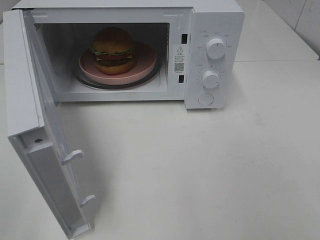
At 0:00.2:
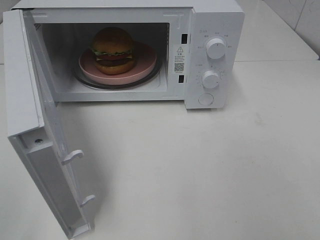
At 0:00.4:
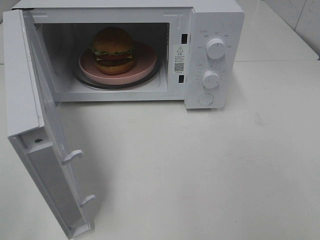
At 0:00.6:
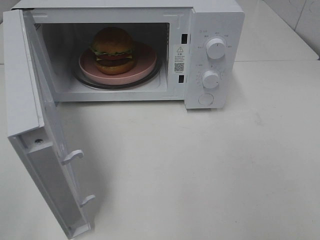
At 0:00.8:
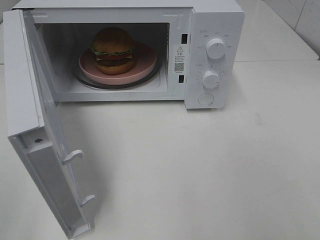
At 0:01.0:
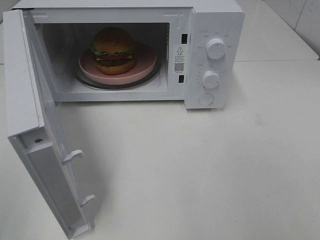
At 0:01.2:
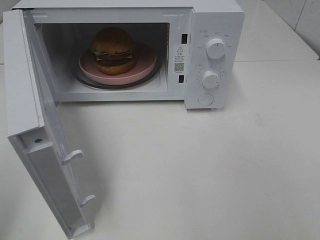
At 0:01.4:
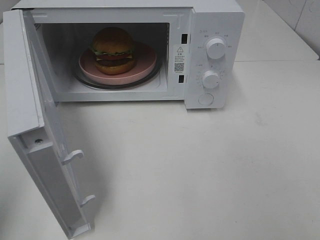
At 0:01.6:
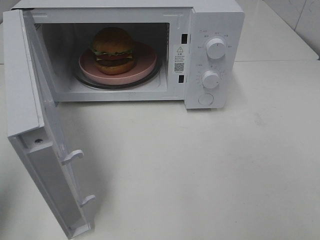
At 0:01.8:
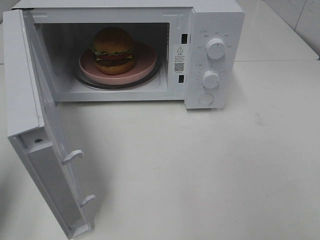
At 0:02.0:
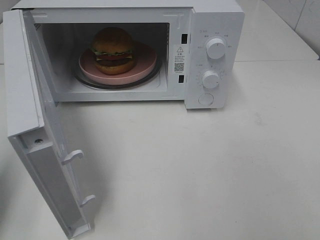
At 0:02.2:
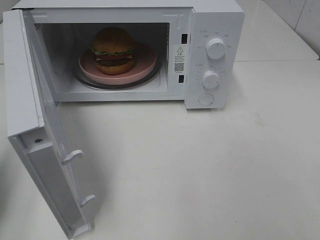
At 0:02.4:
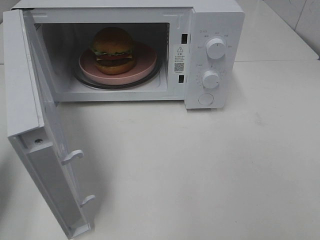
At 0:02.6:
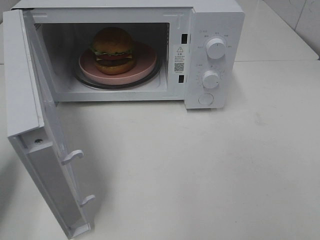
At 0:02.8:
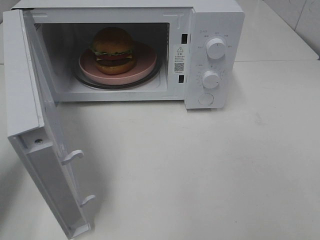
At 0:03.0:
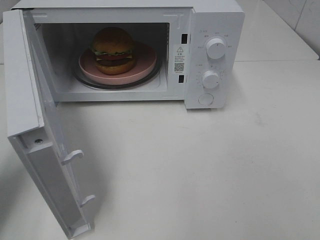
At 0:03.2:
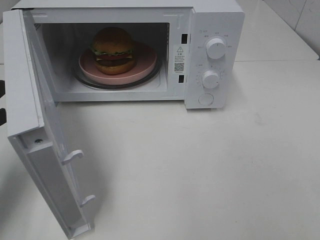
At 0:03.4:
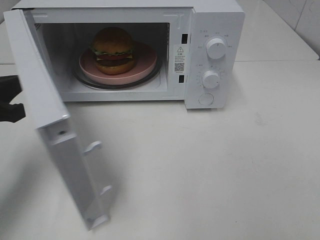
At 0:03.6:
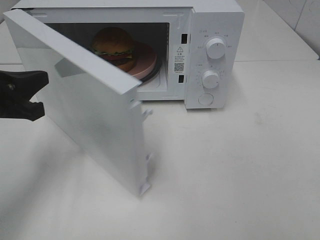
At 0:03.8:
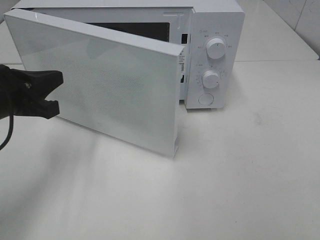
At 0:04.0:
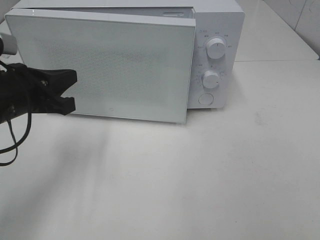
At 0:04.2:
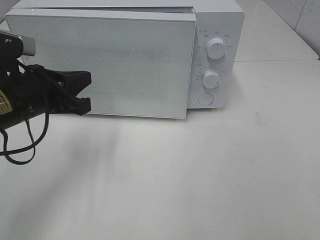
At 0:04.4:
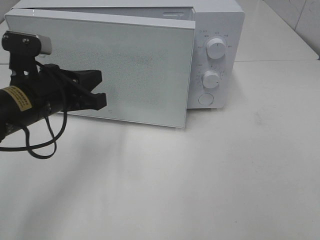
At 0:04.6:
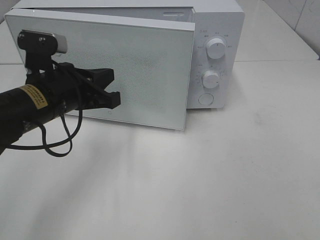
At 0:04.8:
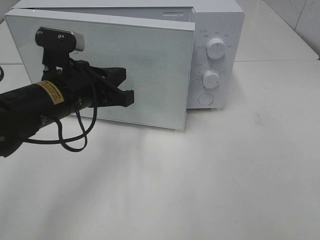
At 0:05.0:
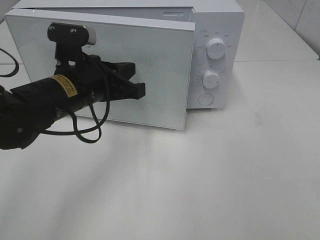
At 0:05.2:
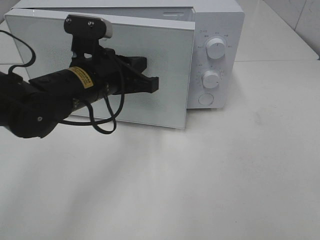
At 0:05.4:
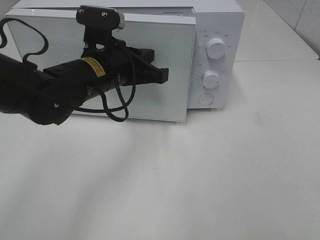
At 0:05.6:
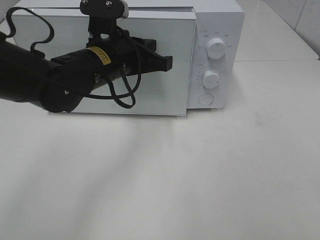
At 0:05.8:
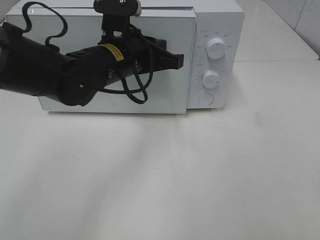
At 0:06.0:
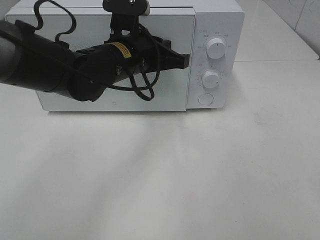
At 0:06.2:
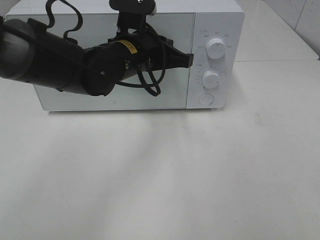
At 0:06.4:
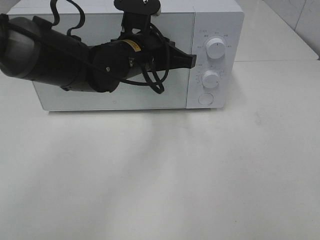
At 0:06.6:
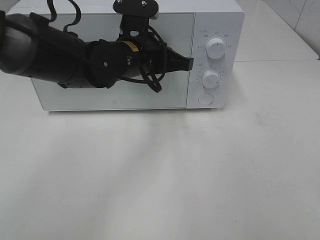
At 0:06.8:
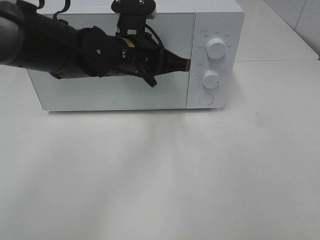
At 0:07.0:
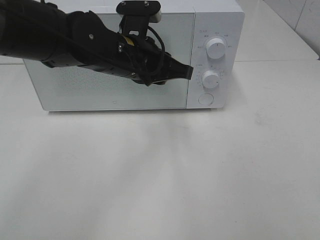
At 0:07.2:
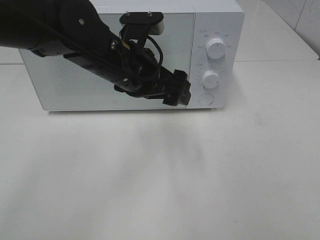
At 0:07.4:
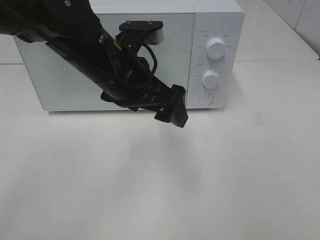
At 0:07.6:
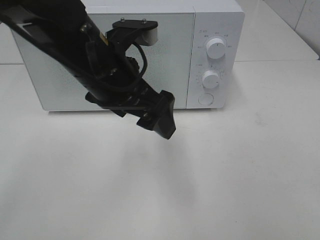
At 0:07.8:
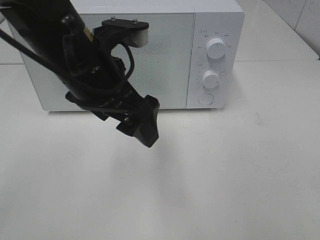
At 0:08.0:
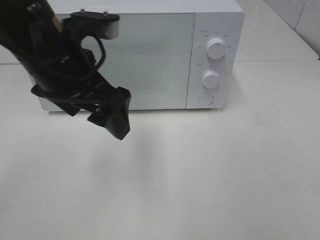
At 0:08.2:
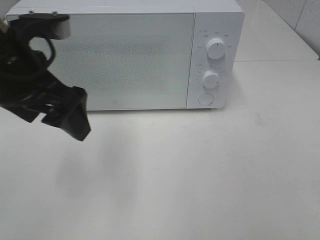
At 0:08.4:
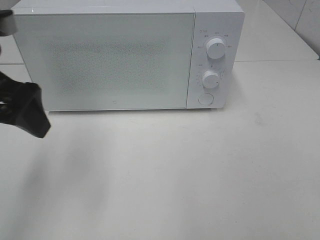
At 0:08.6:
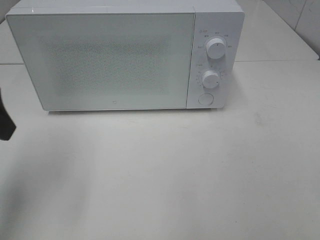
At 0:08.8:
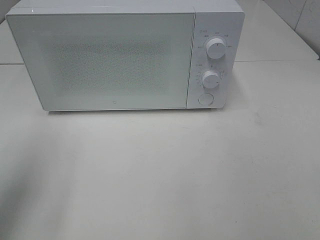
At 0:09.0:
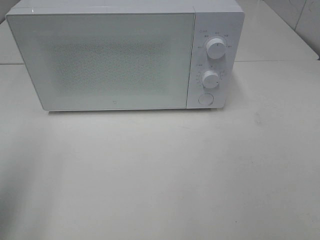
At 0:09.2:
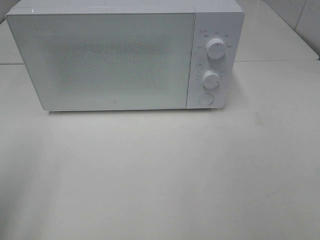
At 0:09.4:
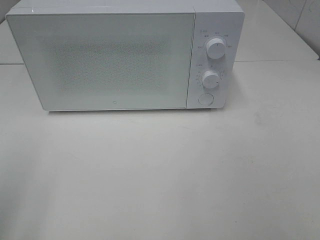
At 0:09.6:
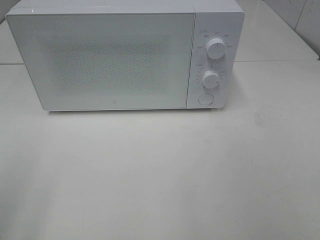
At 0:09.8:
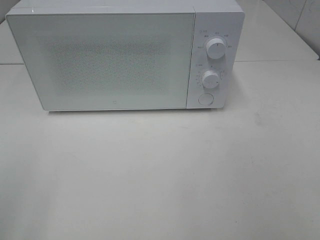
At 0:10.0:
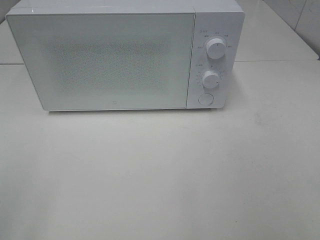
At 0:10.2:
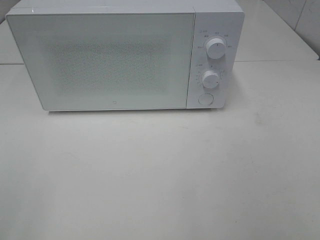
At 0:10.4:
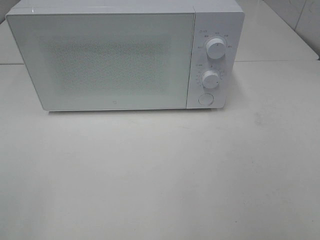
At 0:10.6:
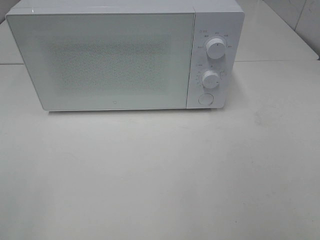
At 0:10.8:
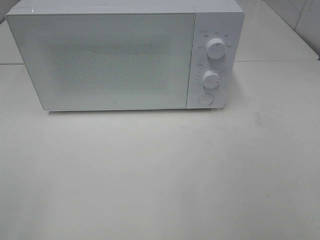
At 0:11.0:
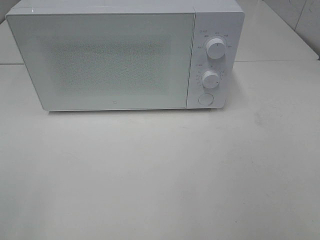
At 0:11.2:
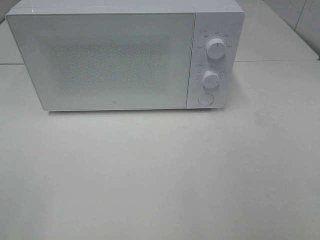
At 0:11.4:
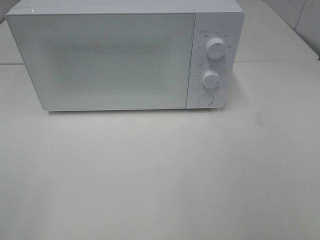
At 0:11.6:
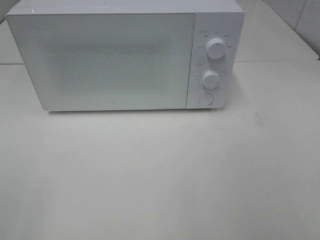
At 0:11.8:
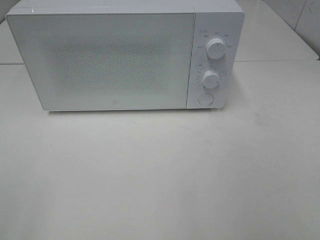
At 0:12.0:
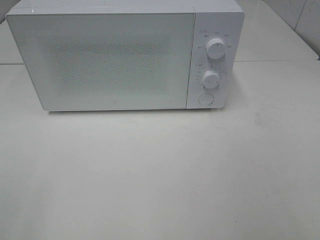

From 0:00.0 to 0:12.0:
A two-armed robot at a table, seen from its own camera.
Task of the whole recording: Heat the burger.
Step, from 0:00.0 to 0:06.8: Left hand: close the microwave door.
From 0:00.0 to 0:01.6: The left gripper goes approximately 15 cm forward, and closes.
From 0:01.6 to 0:03.0: The left gripper is displaced downward and forward by approximately 15 cm.
From 0:03.0 to 0:04.4: The left gripper moves to the right and forward, about 15 cm.
From 0:04.4 to 0:06.0: The left gripper heads to the right and forward, covering roughly 15 cm.
From 0:06.0 to 0:07.6: The left gripper is displaced backward and upward by approximately 10 cm, and opens its fingers.
From 0:07.6 to 0:09.0: The left gripper shifts about 25 cm to the left and backward.
From 0:09.0 to 0:10.4: The left gripper moves backward, roughly 15 cm.

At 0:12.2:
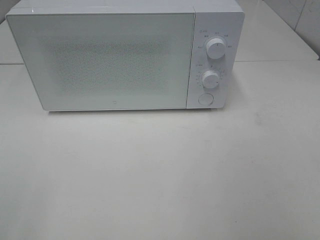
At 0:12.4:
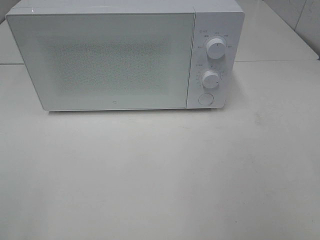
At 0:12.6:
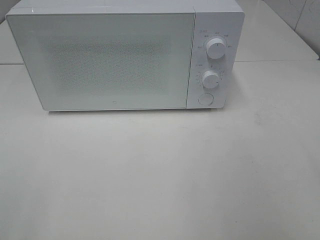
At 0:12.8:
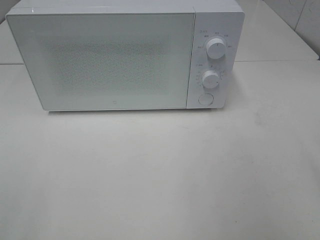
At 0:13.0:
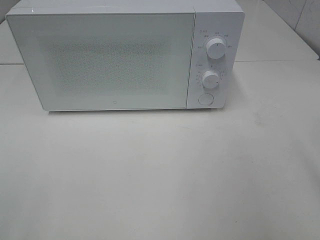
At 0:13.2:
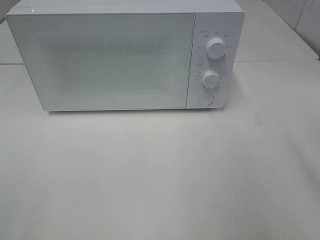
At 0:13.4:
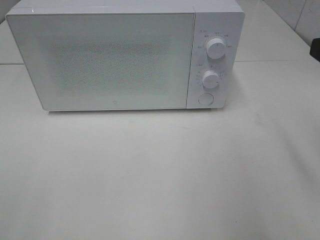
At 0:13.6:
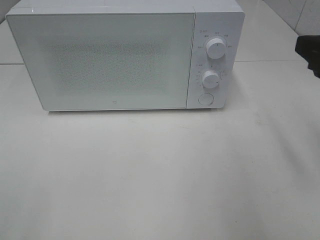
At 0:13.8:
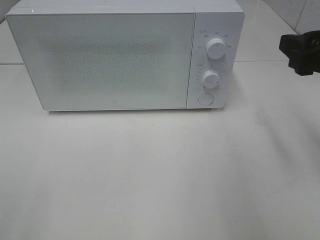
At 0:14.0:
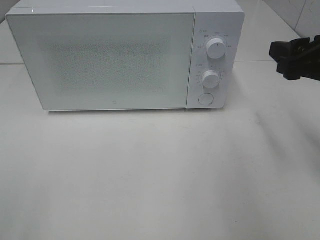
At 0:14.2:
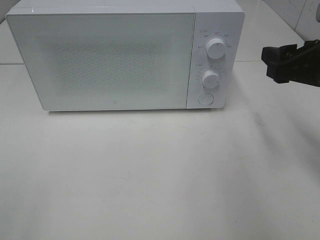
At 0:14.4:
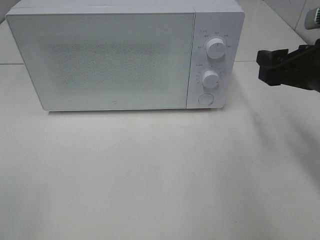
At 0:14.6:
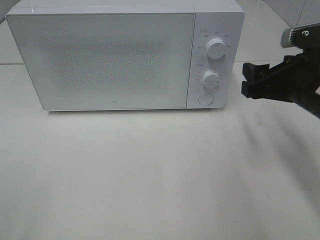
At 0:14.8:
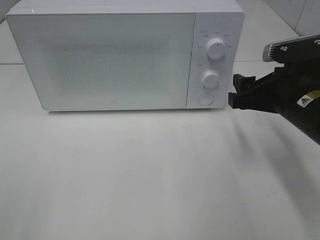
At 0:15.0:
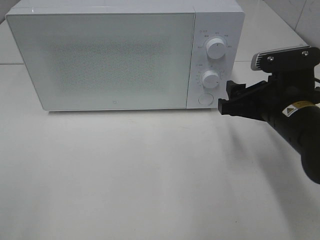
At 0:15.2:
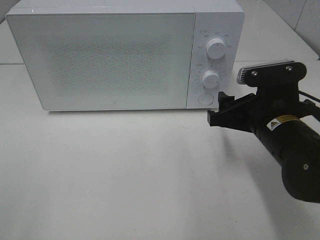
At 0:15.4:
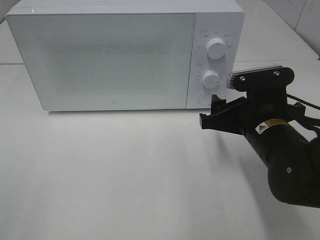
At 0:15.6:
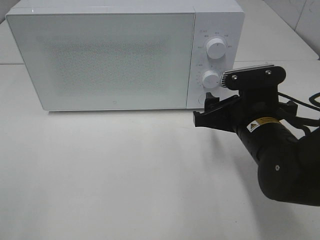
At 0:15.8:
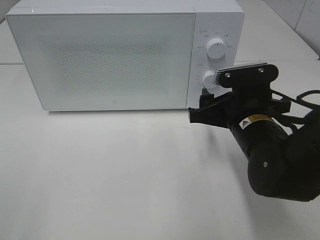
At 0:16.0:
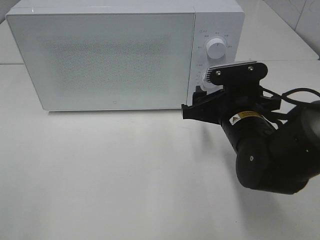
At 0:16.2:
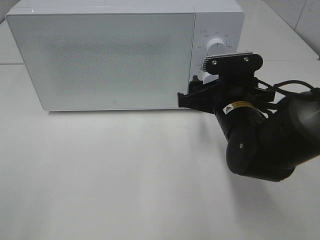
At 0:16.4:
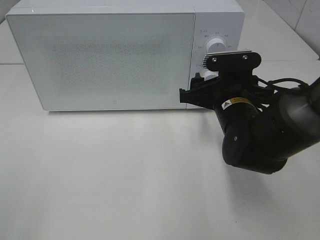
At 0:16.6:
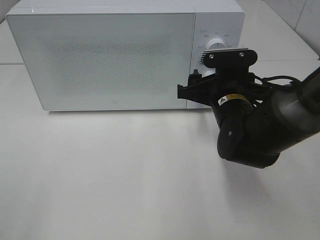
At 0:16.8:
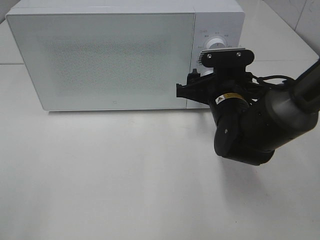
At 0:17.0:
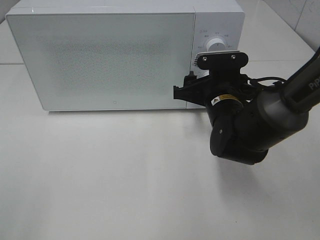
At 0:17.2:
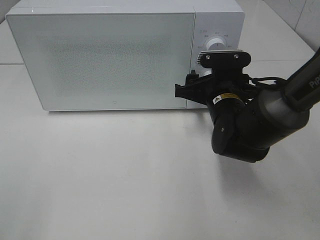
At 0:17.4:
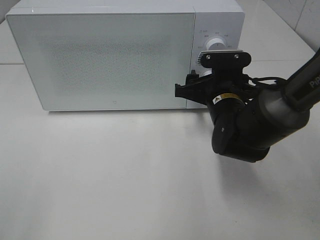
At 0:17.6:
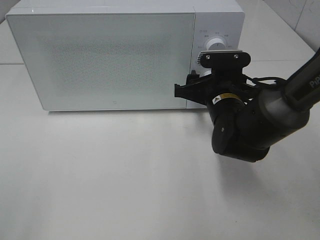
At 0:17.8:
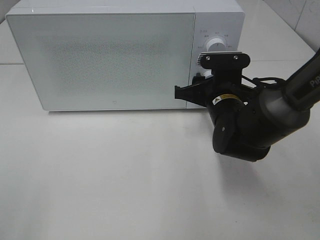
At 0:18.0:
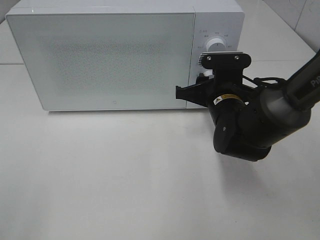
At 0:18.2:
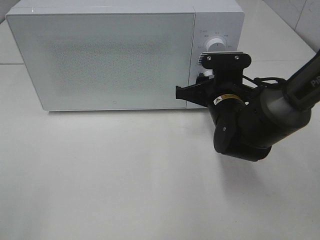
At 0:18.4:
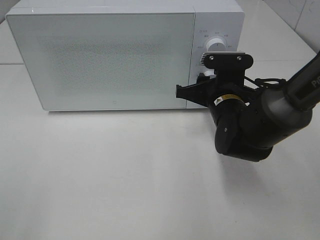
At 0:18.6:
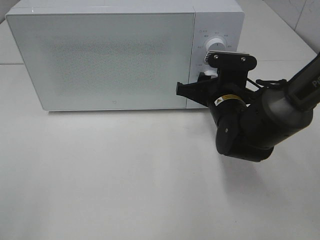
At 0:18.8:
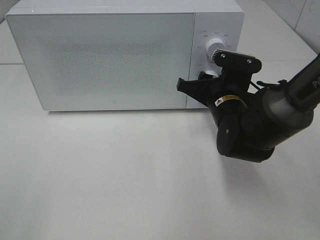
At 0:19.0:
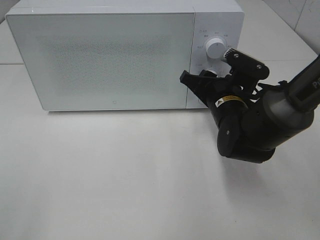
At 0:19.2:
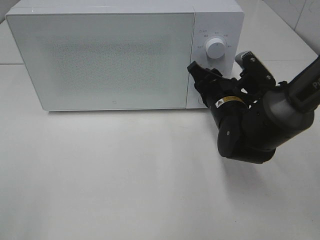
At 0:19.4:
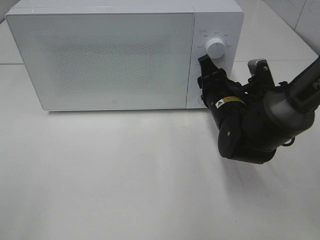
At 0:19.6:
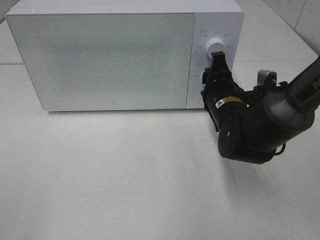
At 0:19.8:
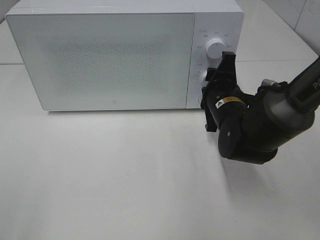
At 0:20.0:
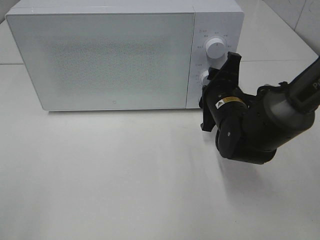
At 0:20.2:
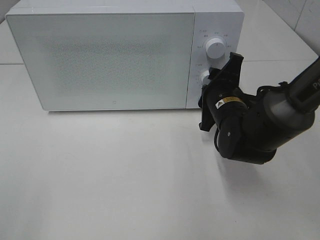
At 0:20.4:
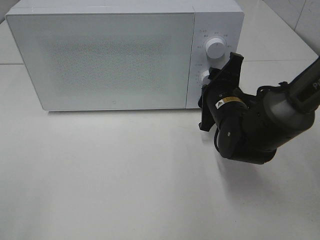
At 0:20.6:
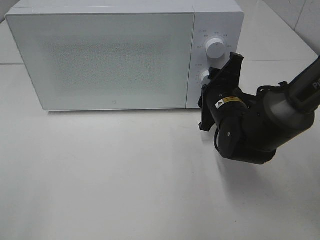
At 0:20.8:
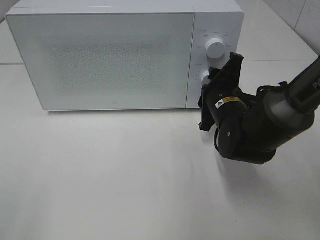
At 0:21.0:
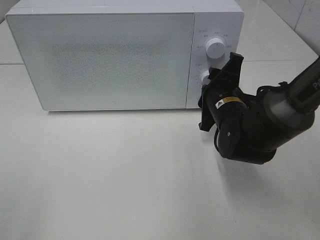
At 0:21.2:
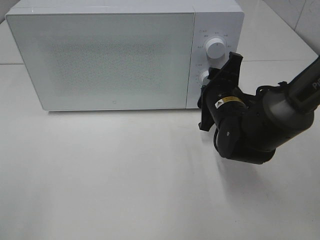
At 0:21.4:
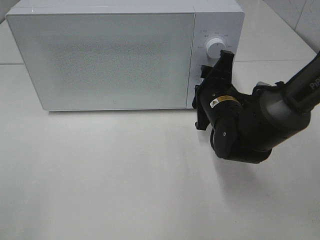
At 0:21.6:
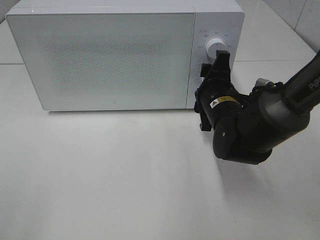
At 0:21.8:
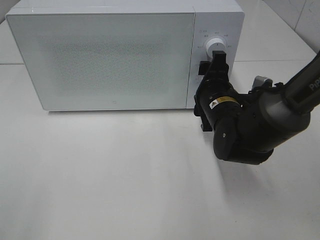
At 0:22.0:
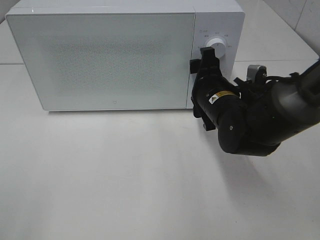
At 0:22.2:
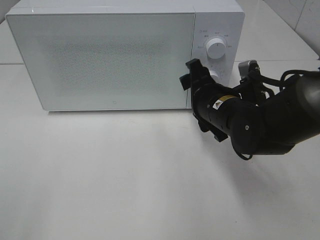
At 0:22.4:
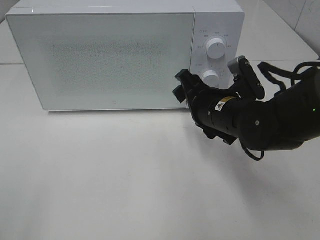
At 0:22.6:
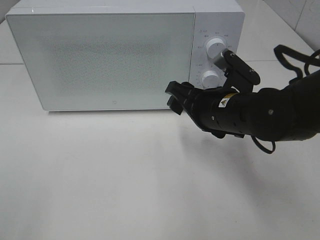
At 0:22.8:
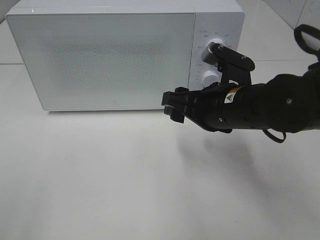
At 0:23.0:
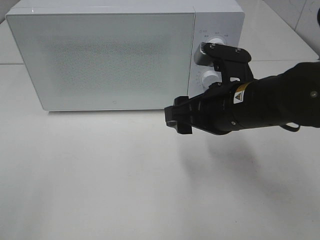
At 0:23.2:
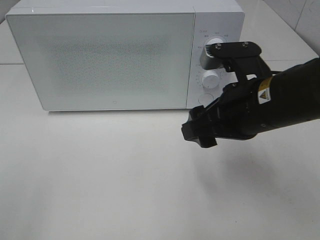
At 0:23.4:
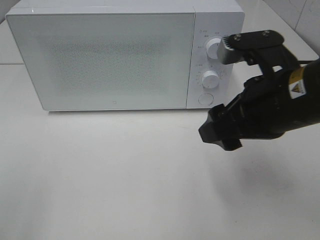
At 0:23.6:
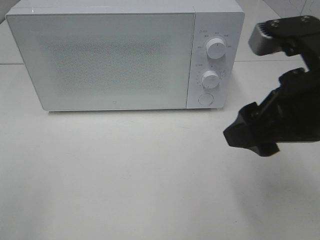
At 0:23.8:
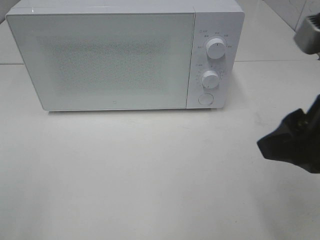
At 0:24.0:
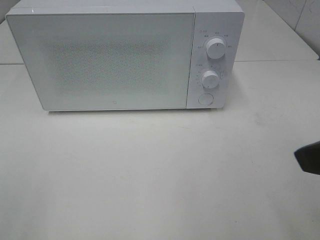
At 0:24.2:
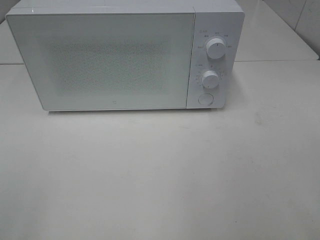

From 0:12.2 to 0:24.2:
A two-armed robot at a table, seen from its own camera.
Task of the whole recording: Heat the burger.
Step, from 0:12.2 to 0:21.4: Right hand: twist timer button.
From 0:12.2 to 0:13.8: The right gripper travels forward by approximately 20 cm.
From 0:13.8 to 0:15.2: The right gripper travels downward and to the left by approximately 15 cm.
From 0:15.2 to 0:16.6: The right gripper goes about 5 cm forward.
From 0:16.6 to 0:18.2: The right gripper closes.
From 0:19.8 to 0:21.2: There are only small adjustments of the grippers.
From 0:21.2 to 0:22.6: The right gripper shifts by about 5 cm.
From 0:22.6 to 0:24.2: The right gripper moves backward, upward and to the right, about 30 cm.
